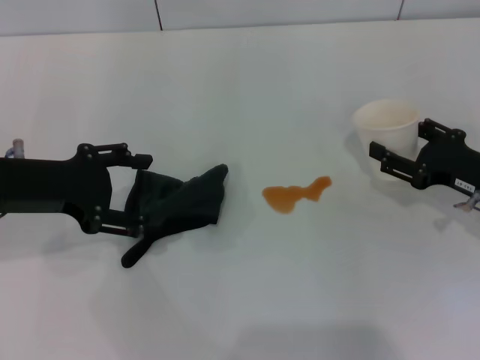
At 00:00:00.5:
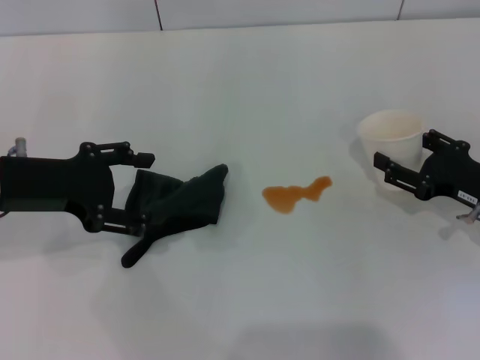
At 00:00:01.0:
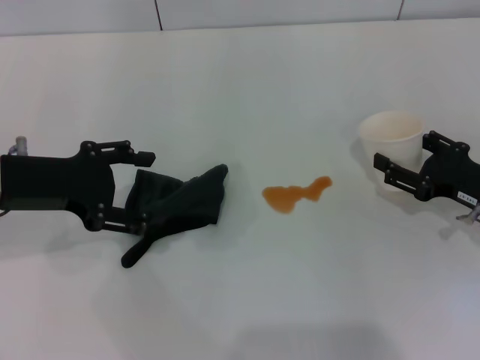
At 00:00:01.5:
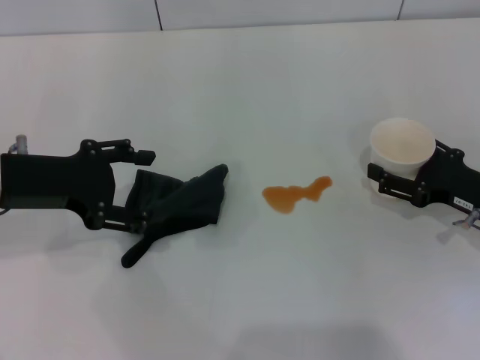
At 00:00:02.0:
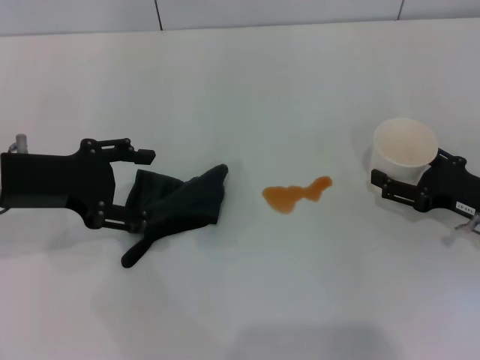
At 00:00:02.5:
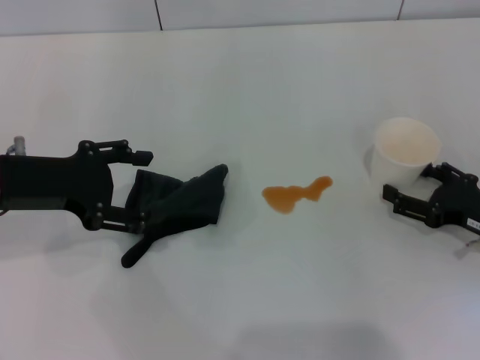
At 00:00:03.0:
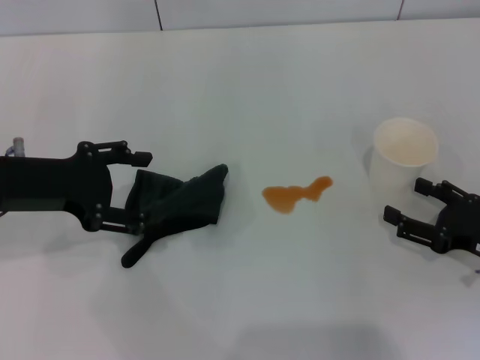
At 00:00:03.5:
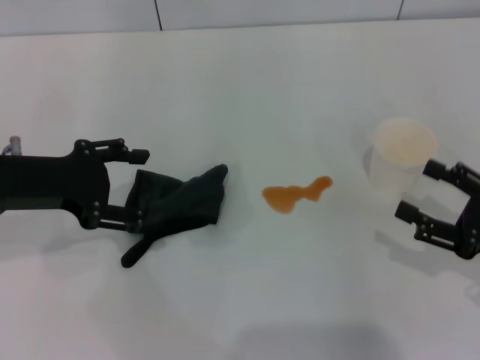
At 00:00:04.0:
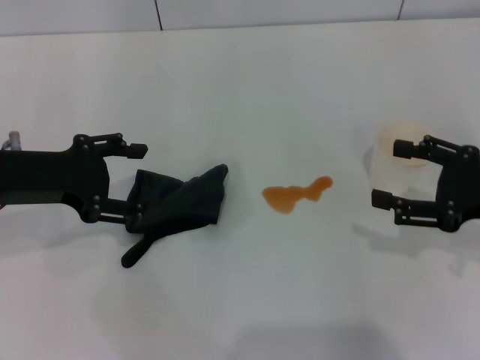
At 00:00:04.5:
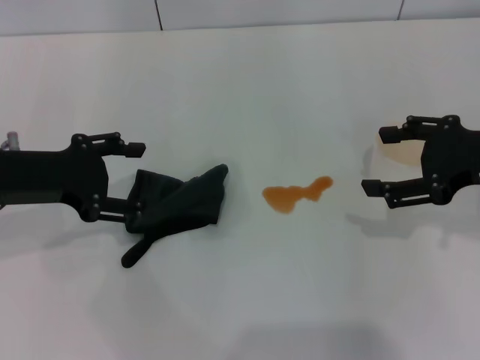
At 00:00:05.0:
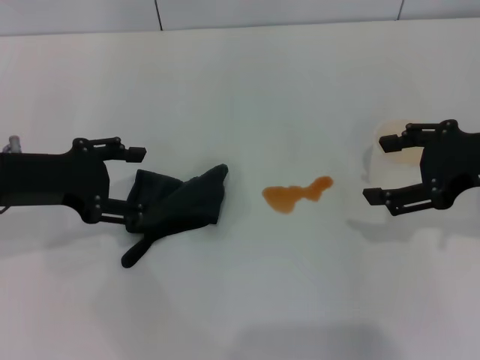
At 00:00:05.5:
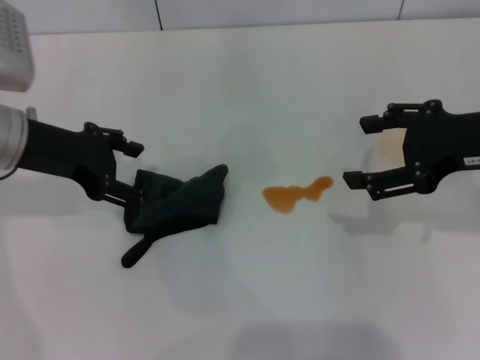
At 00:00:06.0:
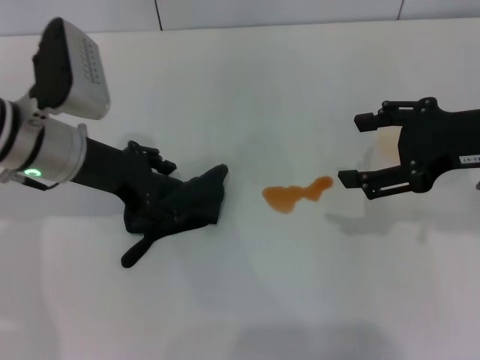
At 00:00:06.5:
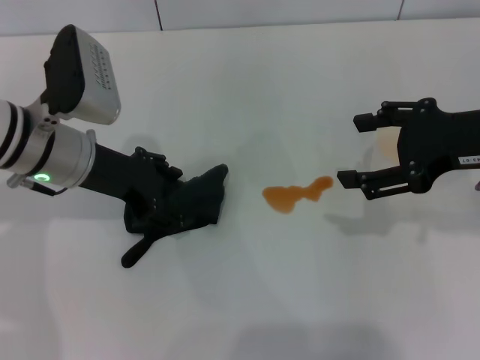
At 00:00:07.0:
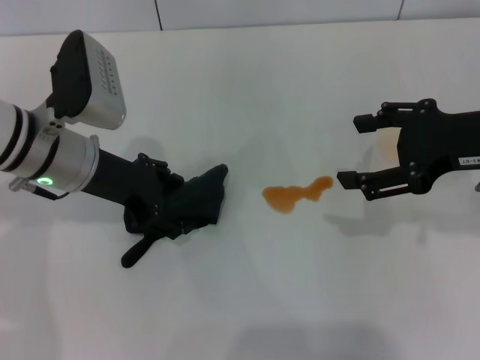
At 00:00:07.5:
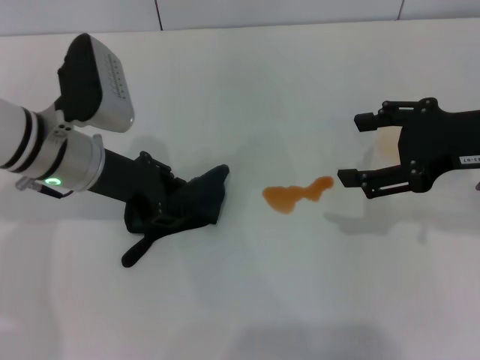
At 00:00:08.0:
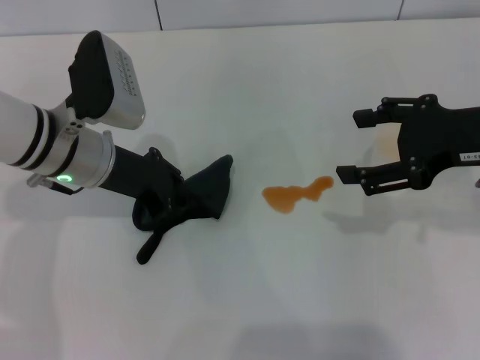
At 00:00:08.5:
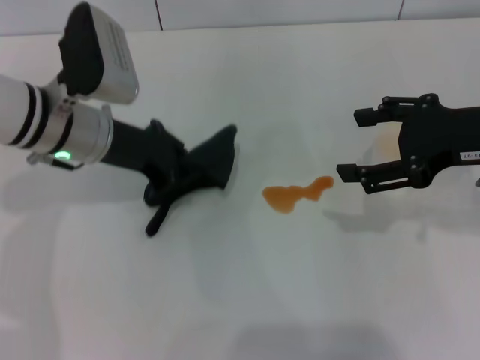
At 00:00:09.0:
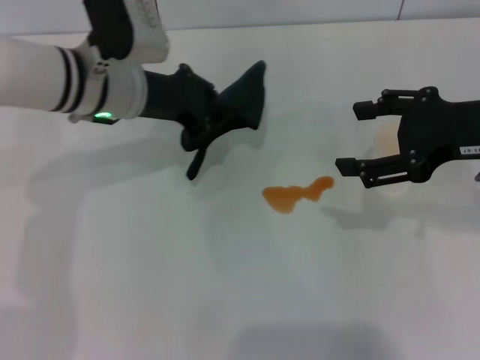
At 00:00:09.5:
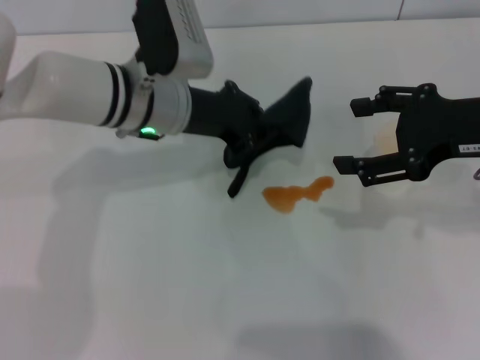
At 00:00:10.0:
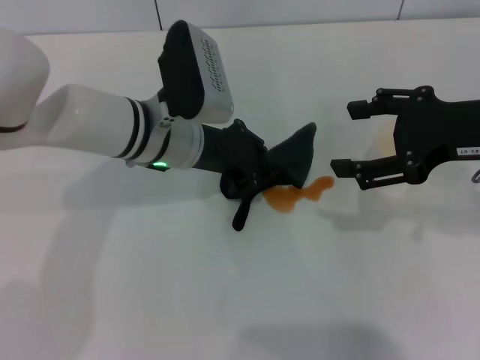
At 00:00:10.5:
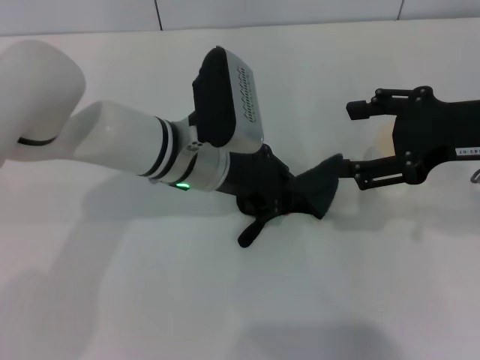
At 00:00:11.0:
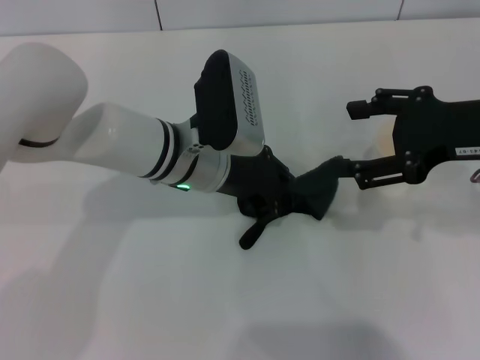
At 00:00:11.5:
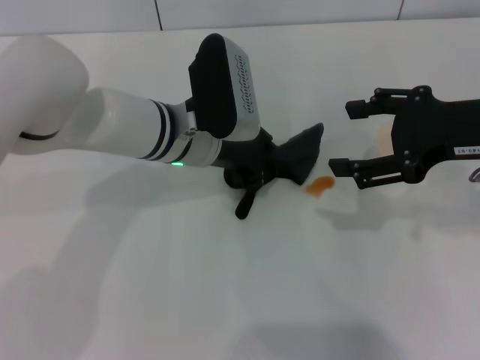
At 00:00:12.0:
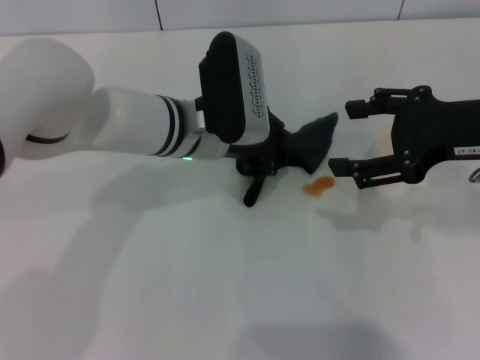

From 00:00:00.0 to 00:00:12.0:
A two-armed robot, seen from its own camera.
Step, from 00:00:00.0 to 00:00:02.5: Stand the paper cup upright with the right gripper.
Step, from 00:00:03.0 to 00:00:08.0: Grasp the rag with the left gripper.
From 00:00:00.0 to 00:00:02.0: The right gripper opens up.
From 00:00:02.0 to 00:00:04.0: The right gripper heads upward, covering some 10 cm.
From 00:00:04.0 to 00:00:06.0: The left gripper travels to the right by roughly 5 cm. The right gripper travels upward by roughly 10 cm.
From 00:00:06.0 to 00:00:08.0: The left gripper closes.
From 00:00:08.0 to 00:00:10.0: The left gripper shifts roughly 10 cm to the right.
From 00:00:10.0 to 00:00:12.0: The grippers stay close to where they were, moving slightly.

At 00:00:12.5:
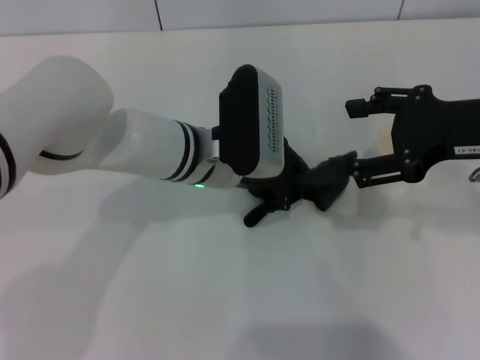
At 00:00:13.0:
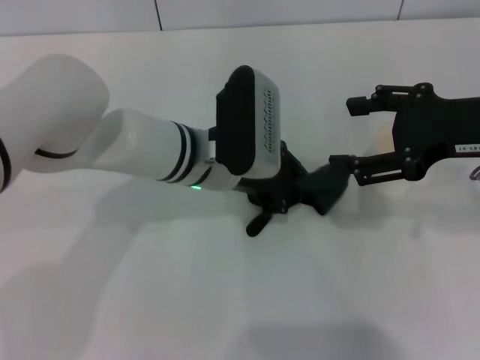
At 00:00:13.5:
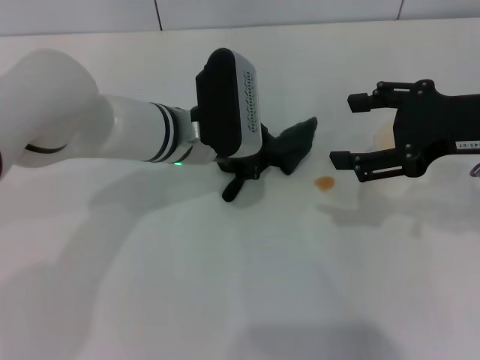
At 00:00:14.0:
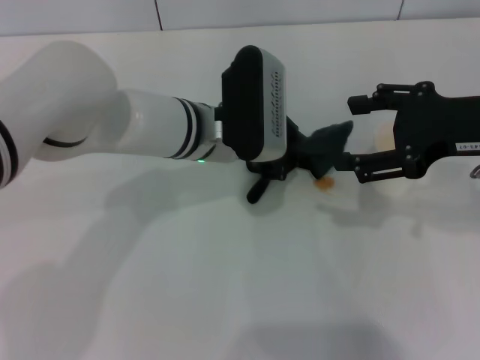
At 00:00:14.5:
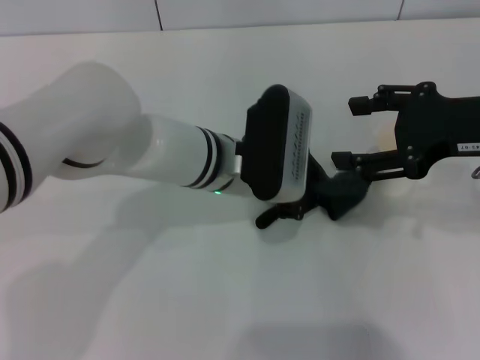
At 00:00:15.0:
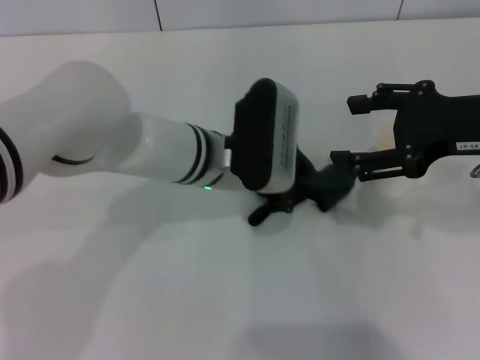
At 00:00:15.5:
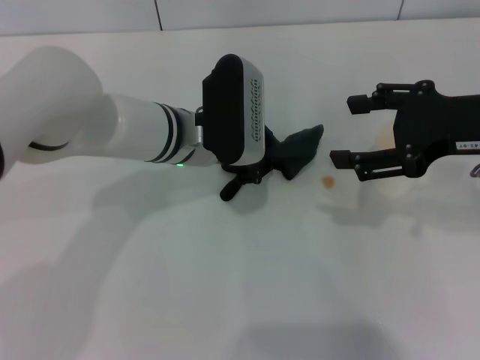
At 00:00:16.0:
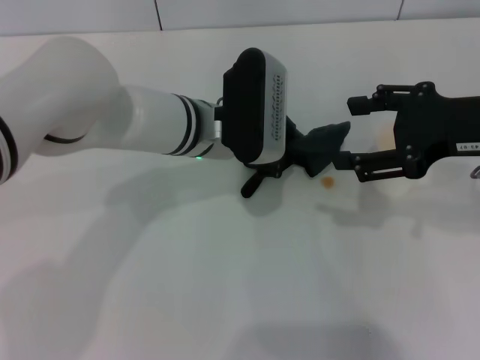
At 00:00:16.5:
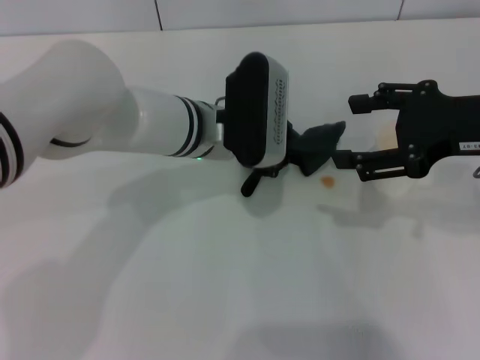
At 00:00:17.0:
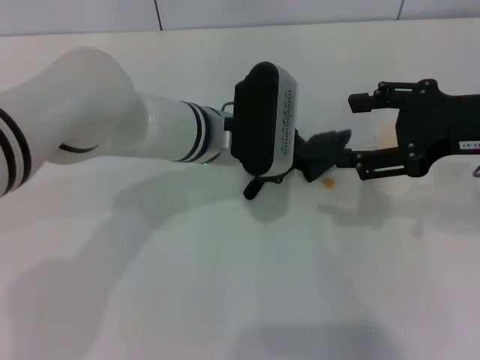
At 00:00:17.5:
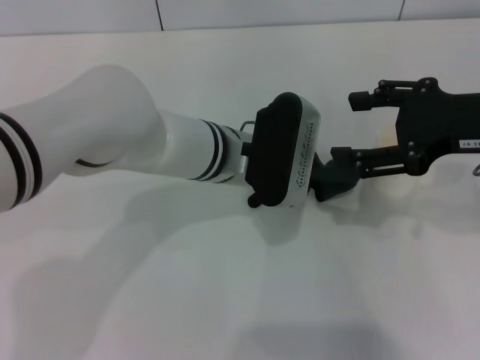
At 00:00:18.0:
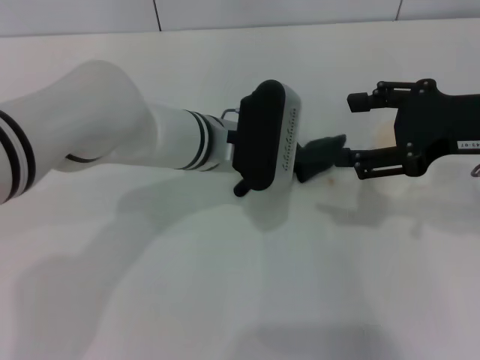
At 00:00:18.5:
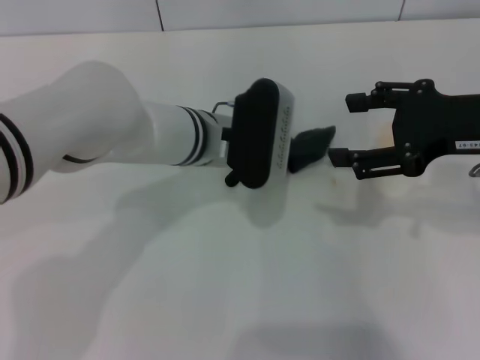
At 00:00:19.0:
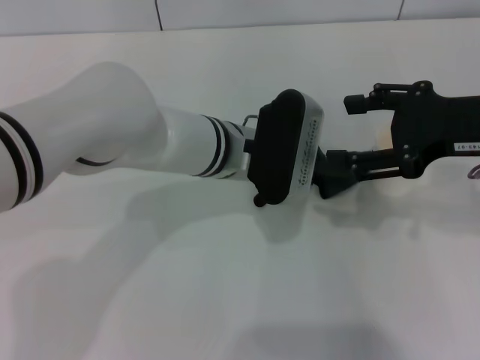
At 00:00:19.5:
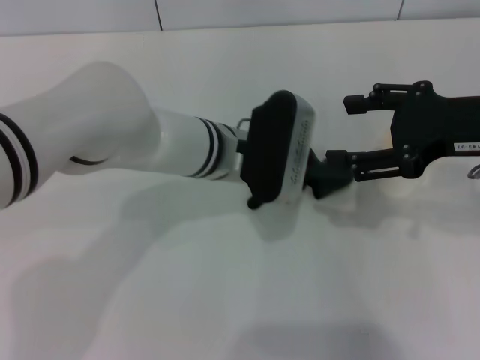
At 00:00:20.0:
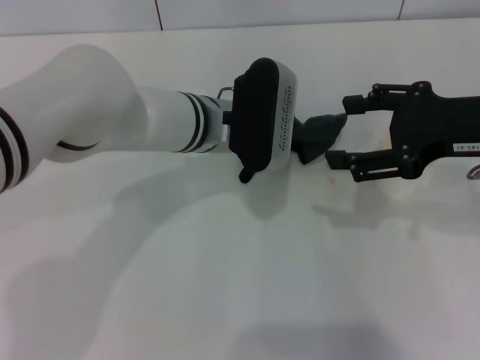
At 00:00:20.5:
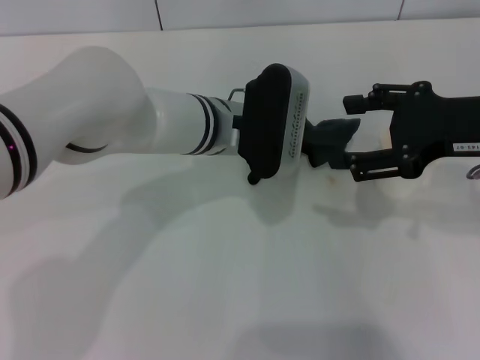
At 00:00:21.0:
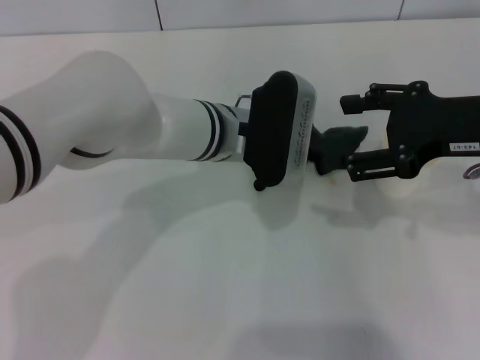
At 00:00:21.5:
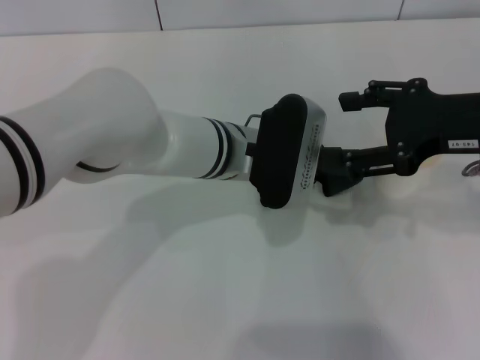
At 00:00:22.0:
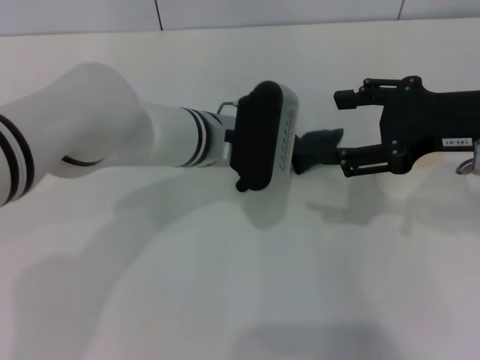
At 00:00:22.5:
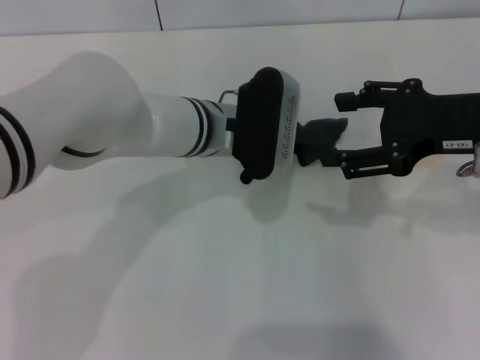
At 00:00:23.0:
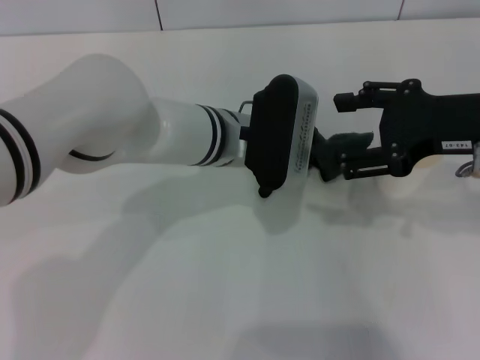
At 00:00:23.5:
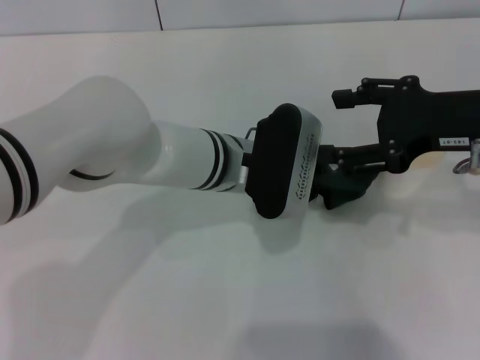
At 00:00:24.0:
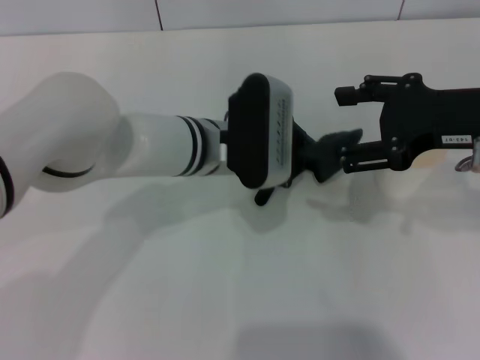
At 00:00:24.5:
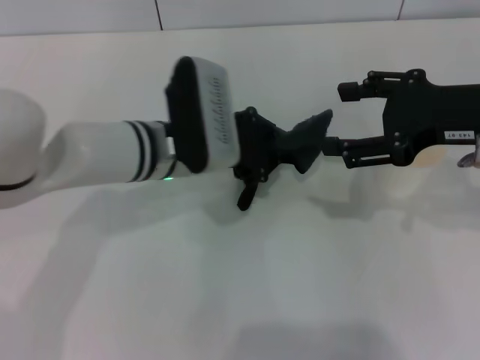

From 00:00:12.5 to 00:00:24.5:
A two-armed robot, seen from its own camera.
From 00:00:12.5 to 00:00:16.5: The grippers move only a little.
From 00:00:16.5 to 00:00:22.5: The grippers move only a little.
From 00:00:22.5 to 00:00:24.5: The left gripper changes place by some 5 cm.

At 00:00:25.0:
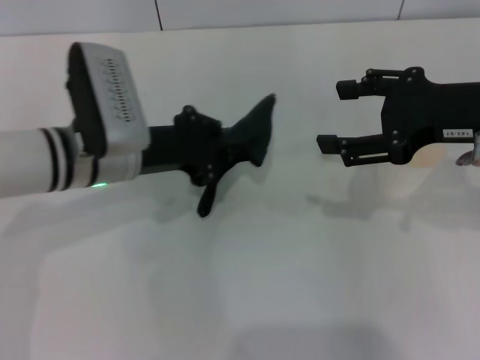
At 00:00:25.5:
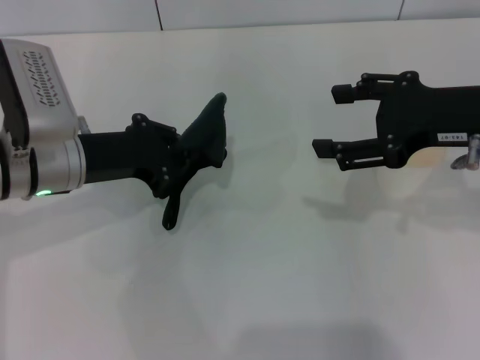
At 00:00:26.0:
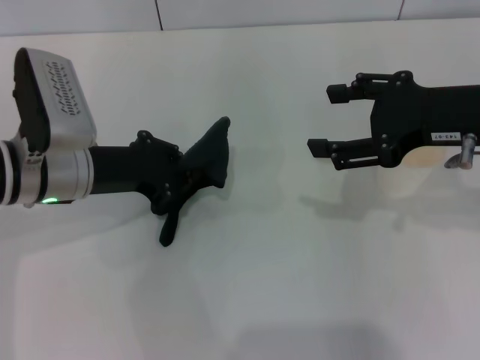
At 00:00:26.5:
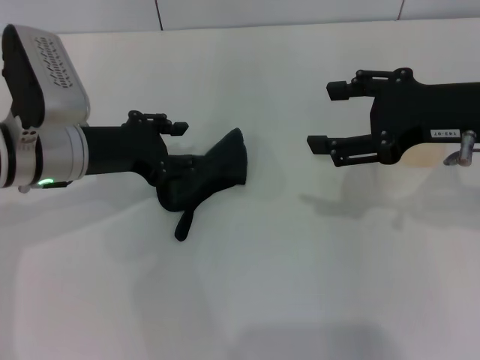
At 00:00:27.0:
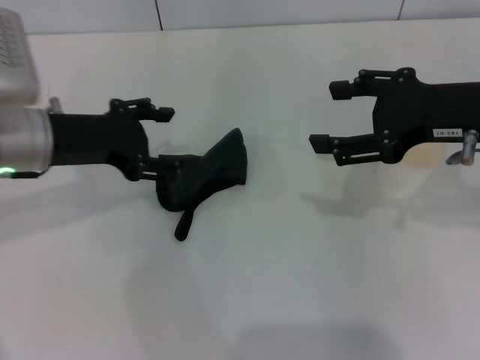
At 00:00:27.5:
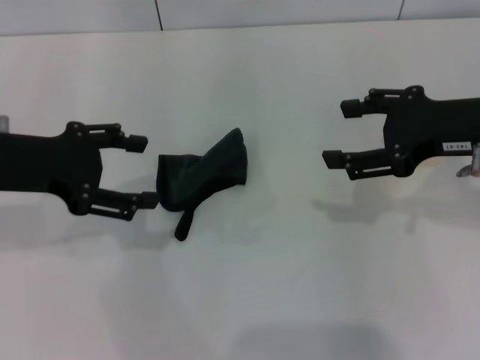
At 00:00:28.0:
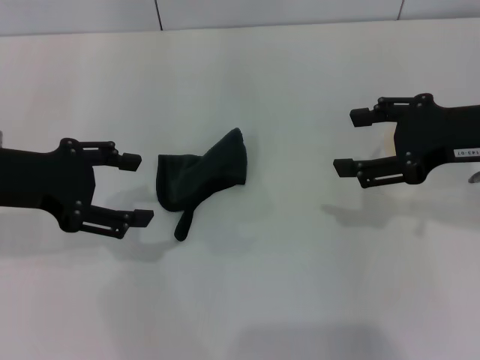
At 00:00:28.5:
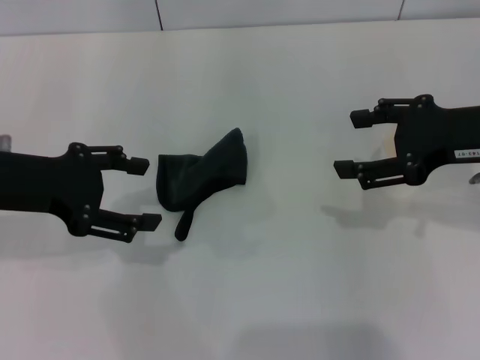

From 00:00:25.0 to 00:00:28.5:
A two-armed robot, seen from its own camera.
Step, from 00:00:26.5 to 00:00:27.0: Place the rag on the table with the left gripper.
From 00:00:25.0 to 00:00:27.0: The left gripper shifts roughly 5 cm to the left, and opens up.
From 00:00:27.0 to 00:00:28.5: The left gripper ends up some 5 cm from where it was.
